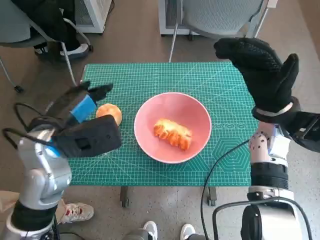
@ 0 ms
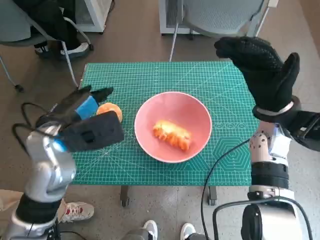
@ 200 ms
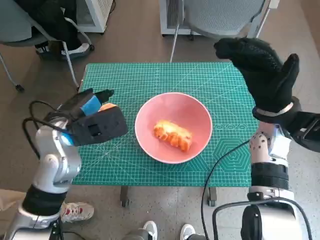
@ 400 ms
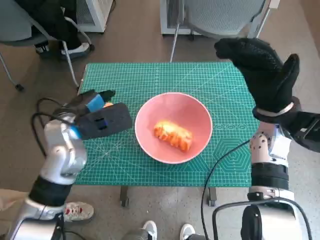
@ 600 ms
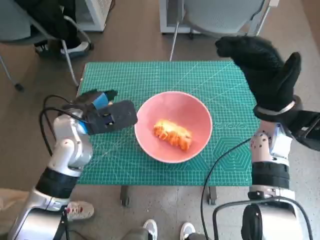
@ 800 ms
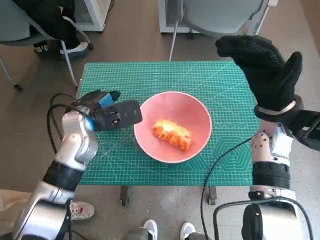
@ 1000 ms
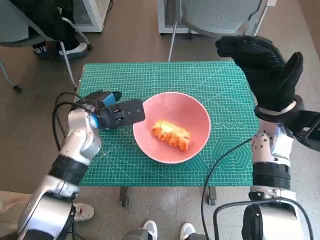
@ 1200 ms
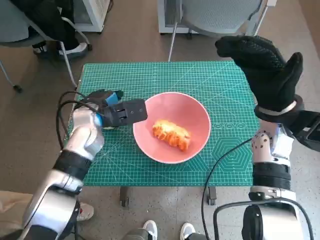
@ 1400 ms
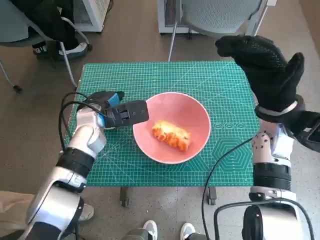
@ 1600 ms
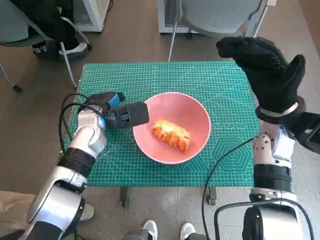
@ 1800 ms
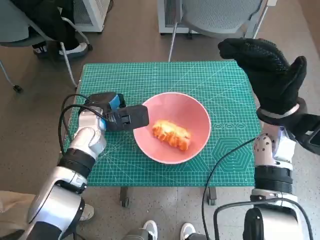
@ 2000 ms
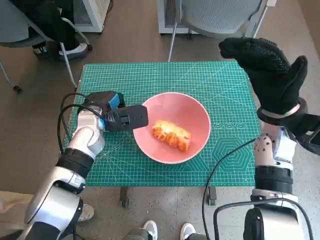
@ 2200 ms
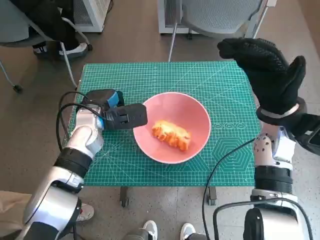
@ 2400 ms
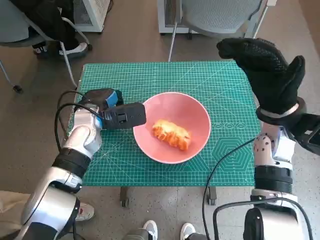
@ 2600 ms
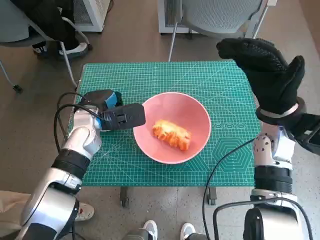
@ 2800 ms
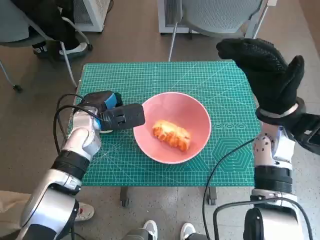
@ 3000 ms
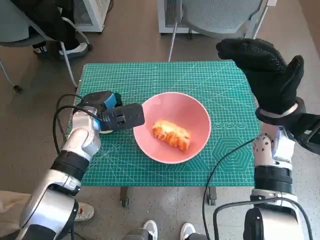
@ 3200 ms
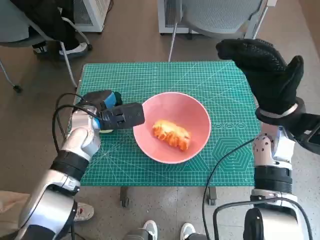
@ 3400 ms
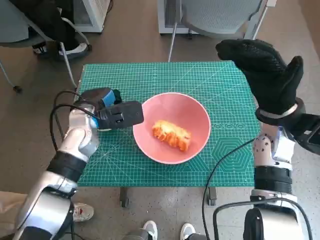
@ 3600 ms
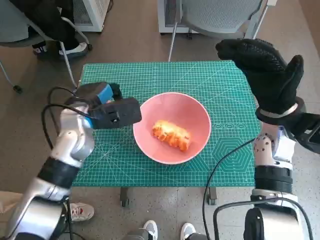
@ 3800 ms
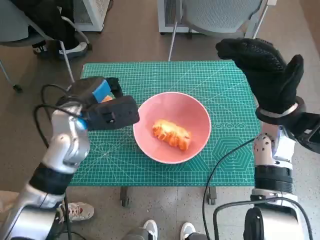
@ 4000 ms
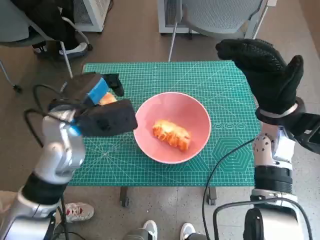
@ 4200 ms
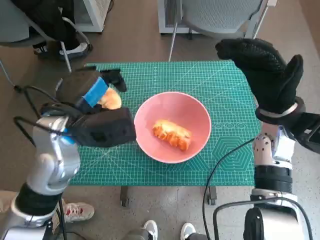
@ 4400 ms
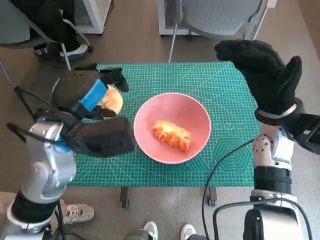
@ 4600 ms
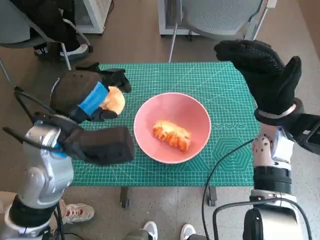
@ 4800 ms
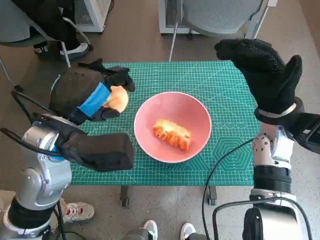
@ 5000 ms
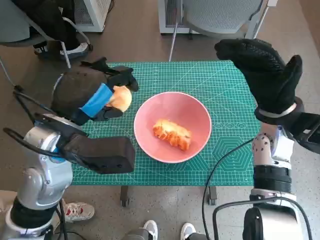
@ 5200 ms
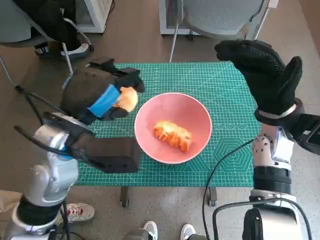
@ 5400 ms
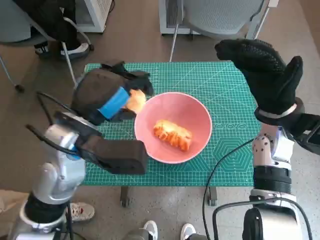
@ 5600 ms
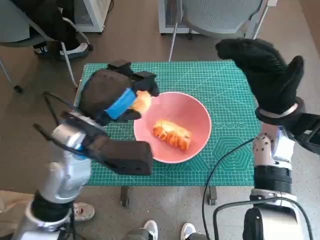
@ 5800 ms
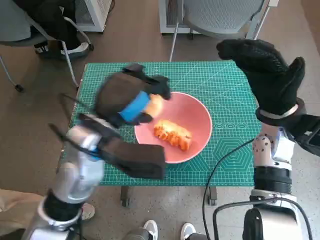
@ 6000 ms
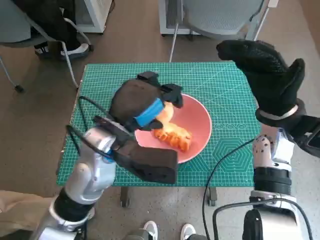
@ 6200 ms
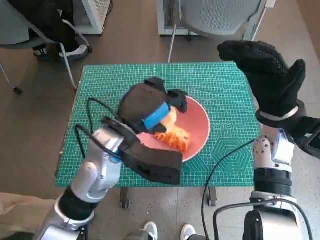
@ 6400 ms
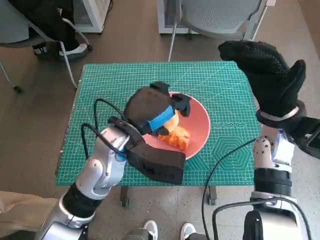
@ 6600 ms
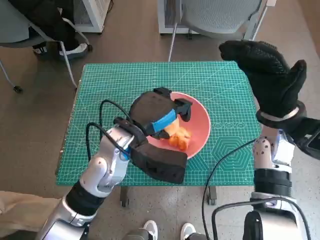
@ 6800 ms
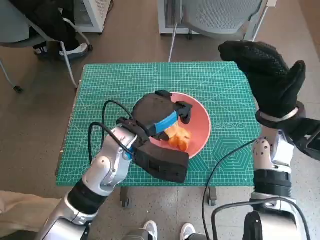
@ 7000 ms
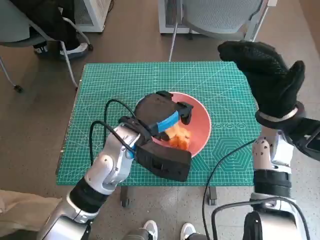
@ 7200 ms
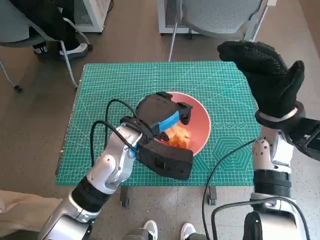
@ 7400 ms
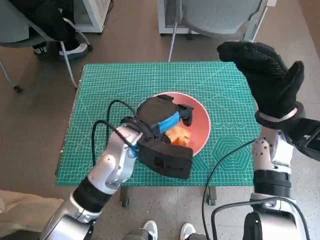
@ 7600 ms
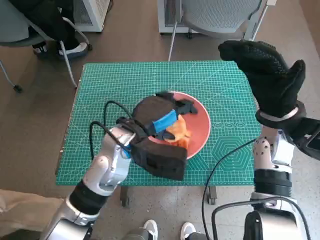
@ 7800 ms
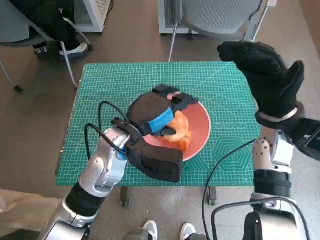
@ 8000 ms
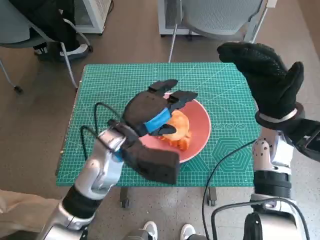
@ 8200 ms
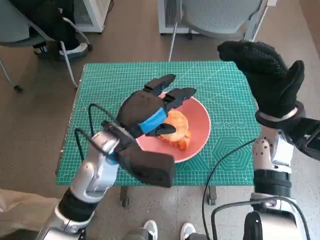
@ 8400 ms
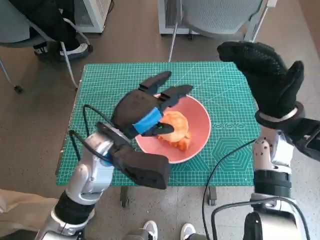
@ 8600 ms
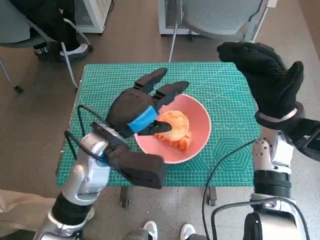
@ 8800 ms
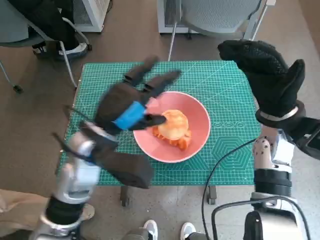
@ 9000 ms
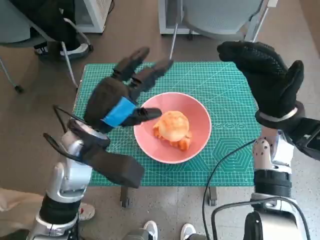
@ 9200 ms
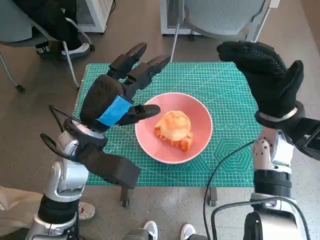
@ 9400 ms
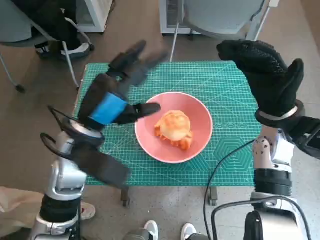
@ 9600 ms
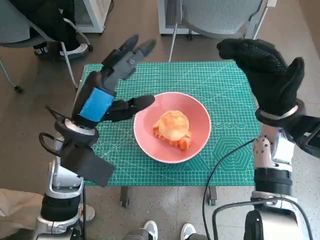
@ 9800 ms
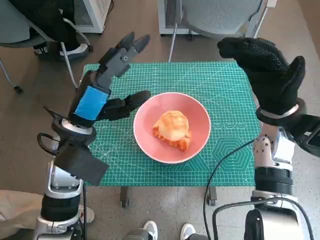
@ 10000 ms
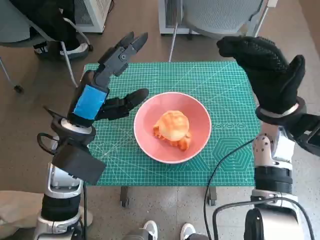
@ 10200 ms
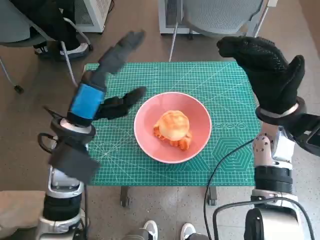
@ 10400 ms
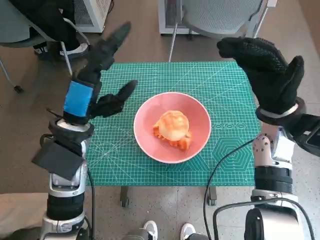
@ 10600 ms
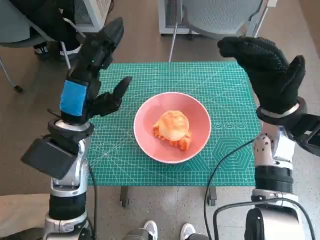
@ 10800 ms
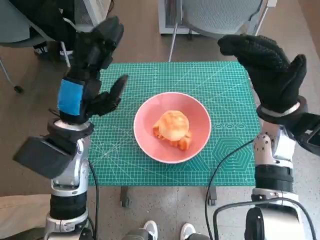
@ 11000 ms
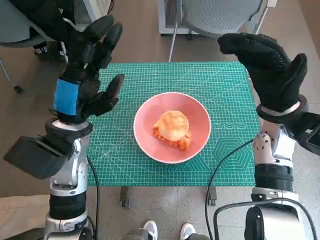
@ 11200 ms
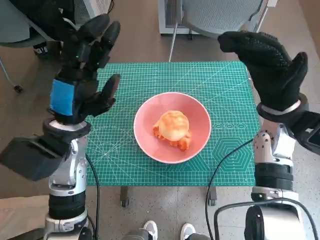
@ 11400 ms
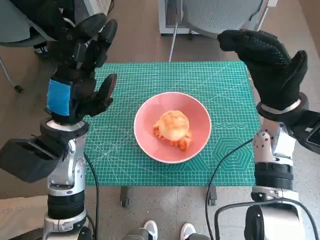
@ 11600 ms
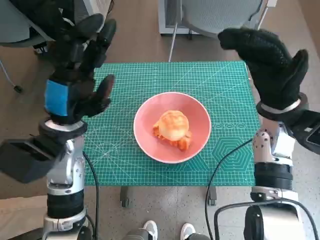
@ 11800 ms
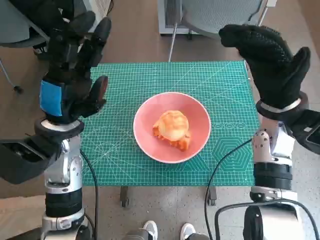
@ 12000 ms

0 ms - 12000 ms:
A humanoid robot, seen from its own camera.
Step, 0 ms - 2400 ms: Grasp the round bread with left hand.
Step, 2600 ms - 8600 ms: Place the round bread in pink bowl with left hand.
0 ms - 1600 ms: The left hand moves forward and downward, about 15 cm.
1600 ms - 3000 ms: The hands move only a little.
3000 ms - 4400 ms: The left hand heads upward and backward, covering some 10 cm.
4400 ms - 6000 ms: The left hand ends up approximately 5 cm from where it was.
6000 ms - 7600 ms: The left hand goes roughly 5 cm downward.
7600 ms - 9000 ms: The left hand moves to the left, some 5 cm.

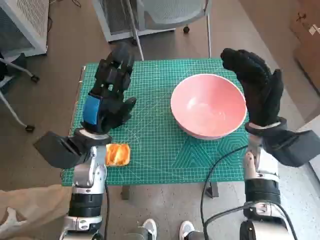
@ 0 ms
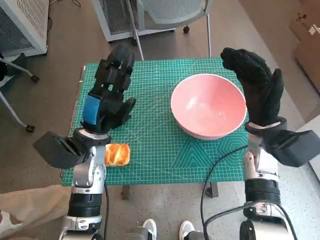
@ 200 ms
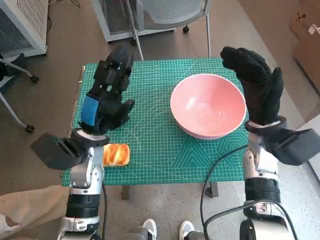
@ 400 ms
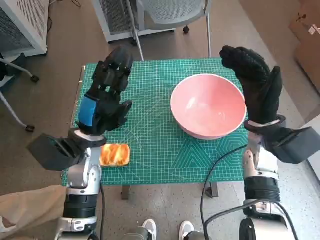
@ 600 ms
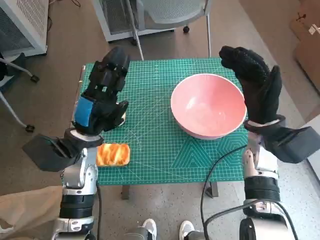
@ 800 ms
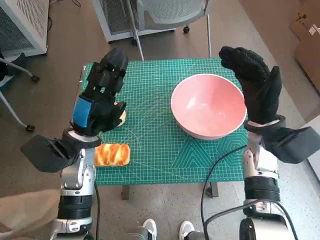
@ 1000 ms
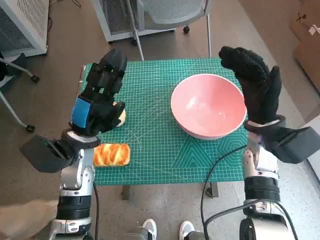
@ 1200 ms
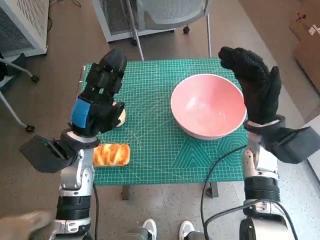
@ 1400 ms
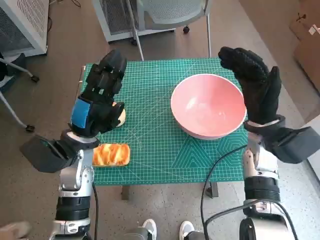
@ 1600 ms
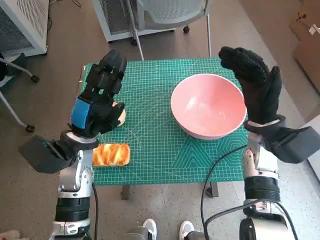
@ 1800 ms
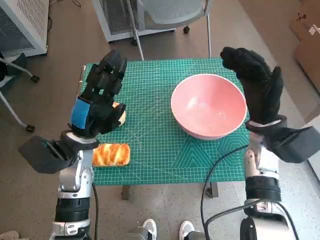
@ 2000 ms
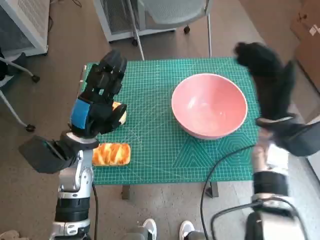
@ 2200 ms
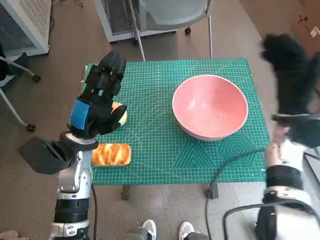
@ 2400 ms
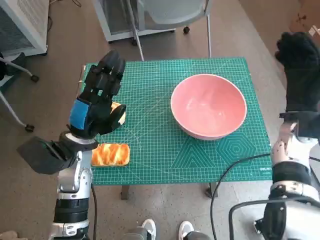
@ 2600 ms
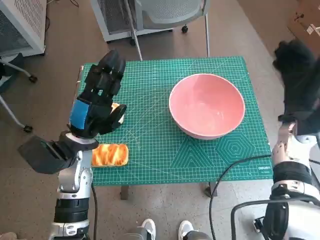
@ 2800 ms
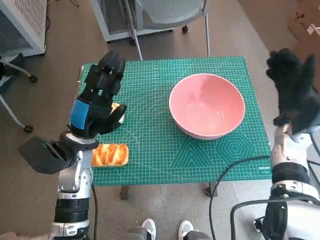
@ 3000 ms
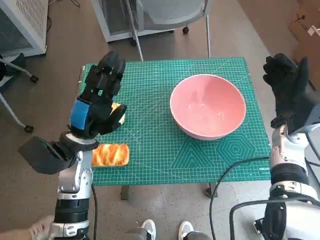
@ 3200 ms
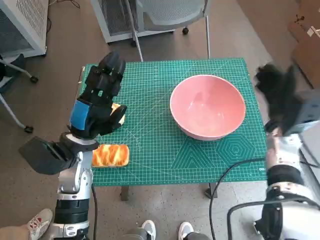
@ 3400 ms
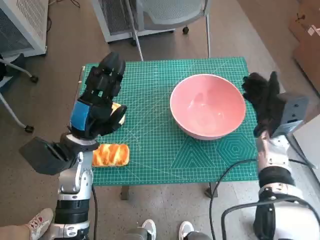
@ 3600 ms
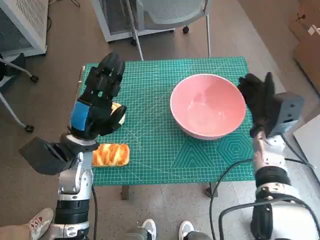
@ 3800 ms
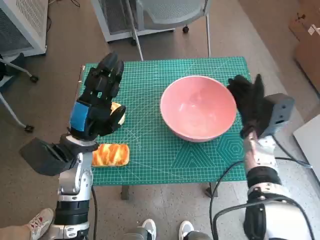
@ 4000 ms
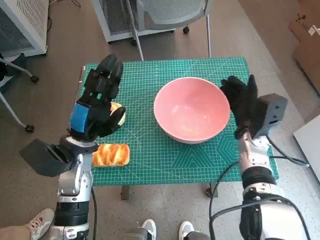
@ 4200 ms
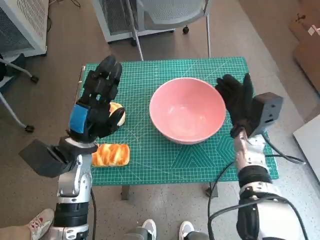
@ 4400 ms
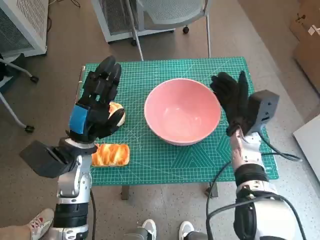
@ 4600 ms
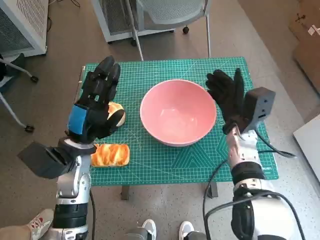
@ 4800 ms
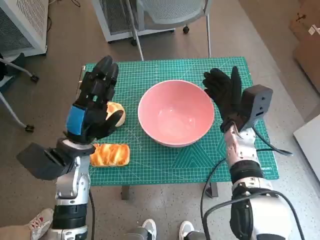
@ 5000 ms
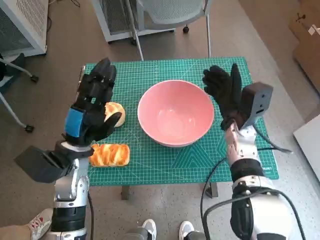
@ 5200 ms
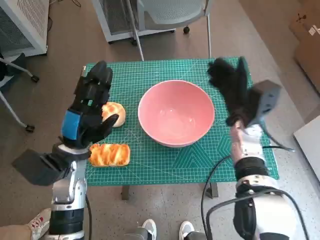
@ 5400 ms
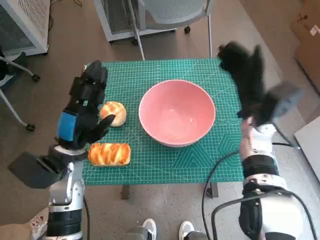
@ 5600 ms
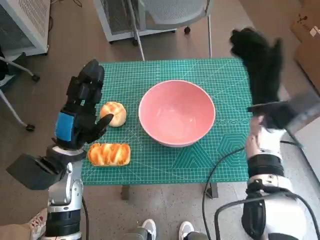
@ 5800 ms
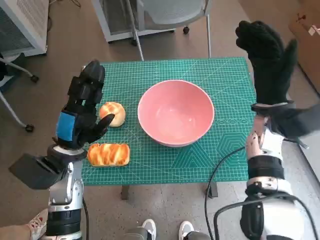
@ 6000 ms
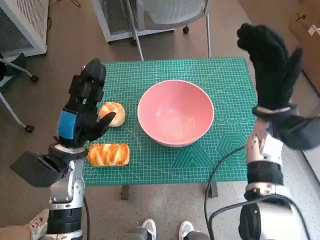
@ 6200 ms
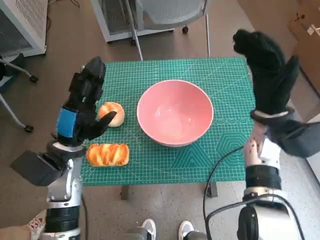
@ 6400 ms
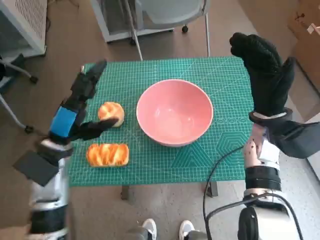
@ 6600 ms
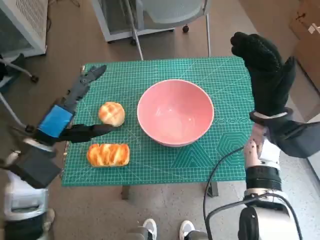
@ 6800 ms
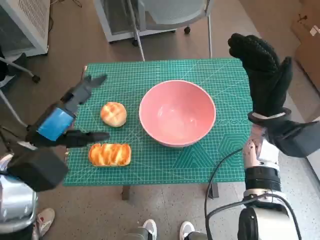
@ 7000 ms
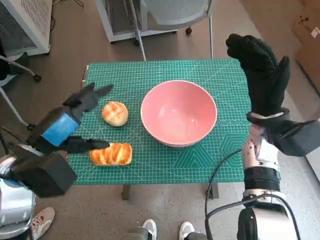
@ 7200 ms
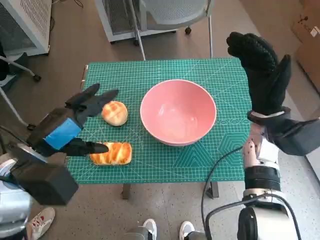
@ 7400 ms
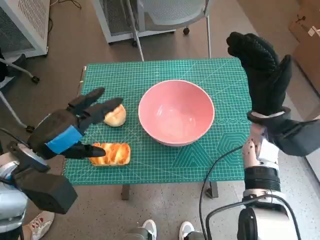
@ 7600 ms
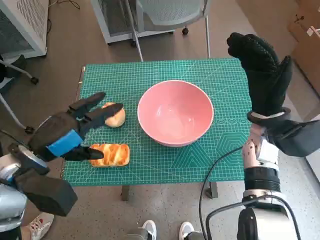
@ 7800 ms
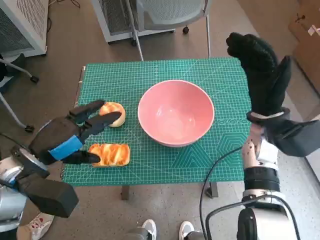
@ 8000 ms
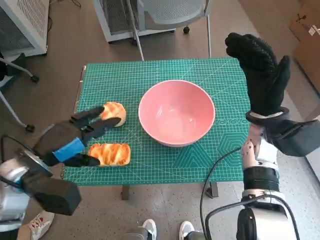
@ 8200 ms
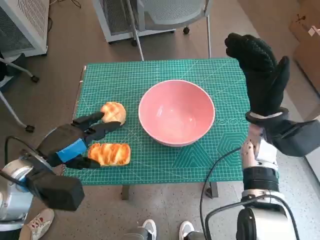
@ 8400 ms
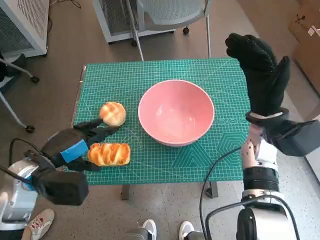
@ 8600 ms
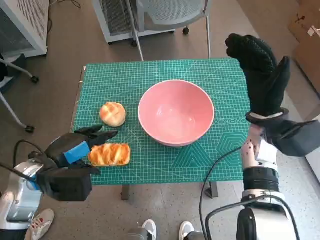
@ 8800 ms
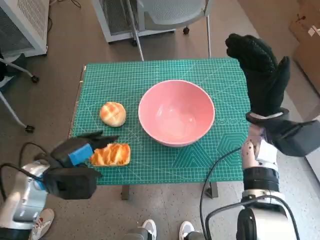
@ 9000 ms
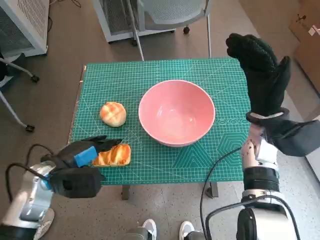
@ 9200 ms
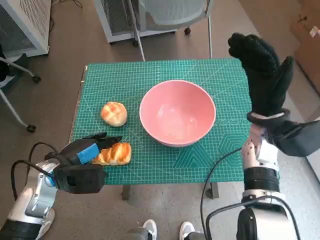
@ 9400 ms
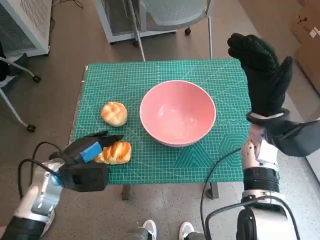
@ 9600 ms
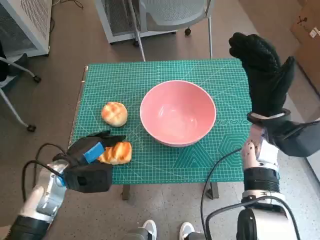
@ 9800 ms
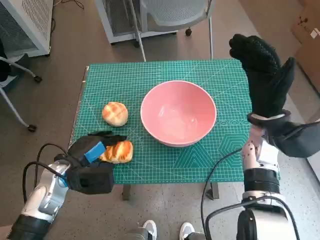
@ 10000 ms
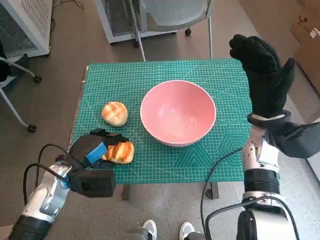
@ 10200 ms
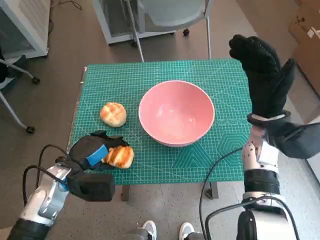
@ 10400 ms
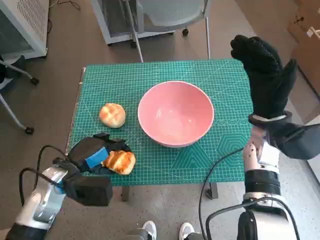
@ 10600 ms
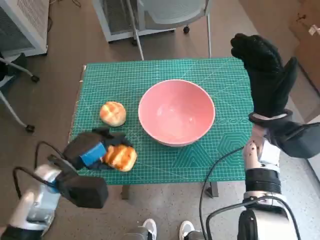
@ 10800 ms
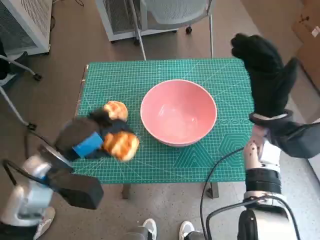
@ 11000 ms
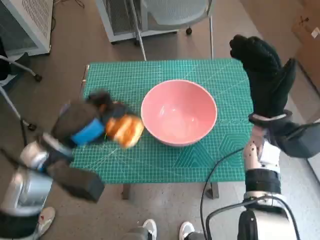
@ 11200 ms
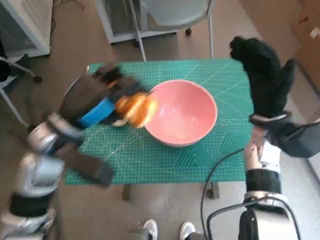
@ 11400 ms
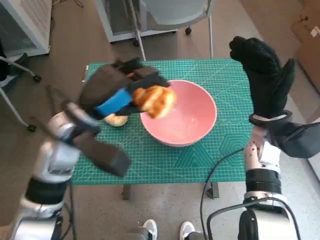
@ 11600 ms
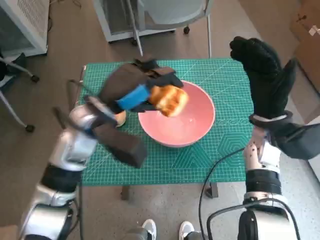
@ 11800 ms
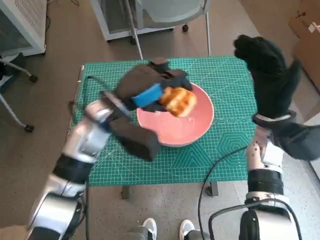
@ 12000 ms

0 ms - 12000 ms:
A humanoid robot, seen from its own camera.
Step, 0 ms - 5200 ms: Move the pink bowl to the center of table with right hand.
Step, 5400 ms - 9800 ms: Grasp the long bread with left hand.
1600 ms - 3000 ms: The right hand travels to the right by about 5 cm.
3000 ms - 4400 ms: The right hand travels to the left by approximately 5 cm.
4400 ms - 6000 ms: The right hand goes approximately 10 cm upward.
6000 ms - 7600 ms: The left hand is displaced upward by some 5 cm.
7600 ms - 9000 ms: The left hand heads downward, covering about 5 cm.
9000 ms - 10400 ms: The hands move only a little.
10400 ms - 12000 ms: The left hand shifts about 15 cm upward, to the right and forward.
